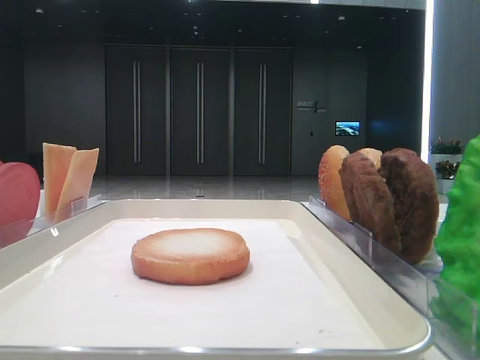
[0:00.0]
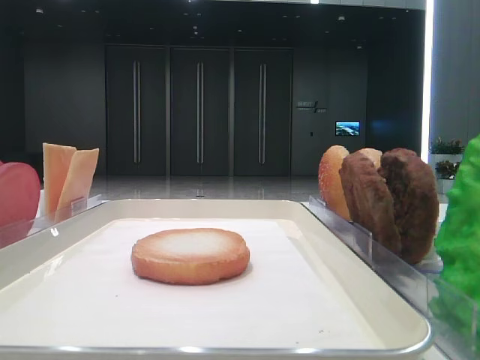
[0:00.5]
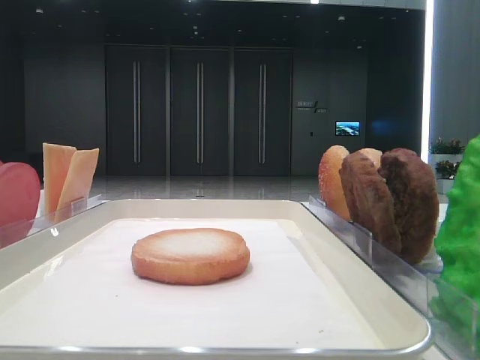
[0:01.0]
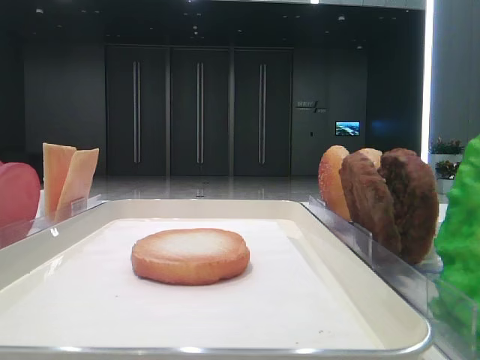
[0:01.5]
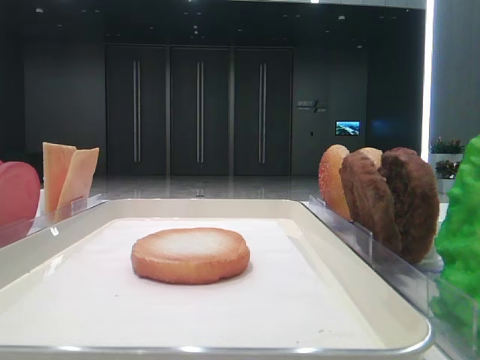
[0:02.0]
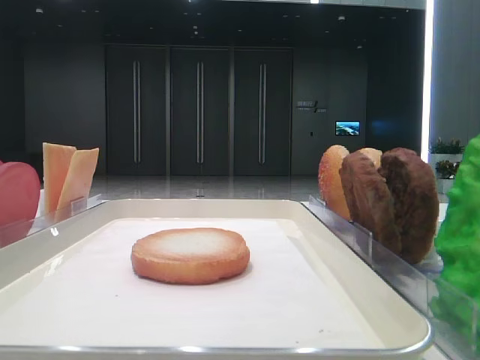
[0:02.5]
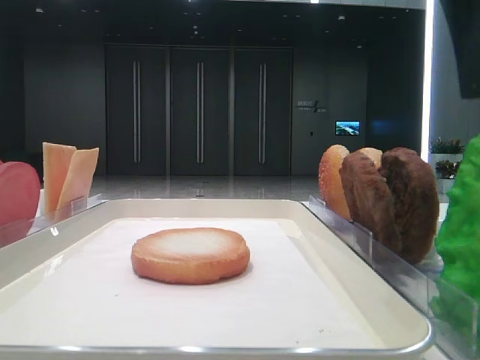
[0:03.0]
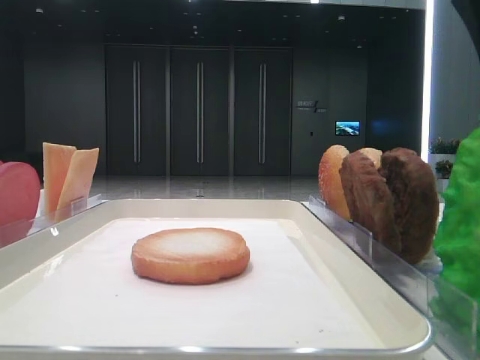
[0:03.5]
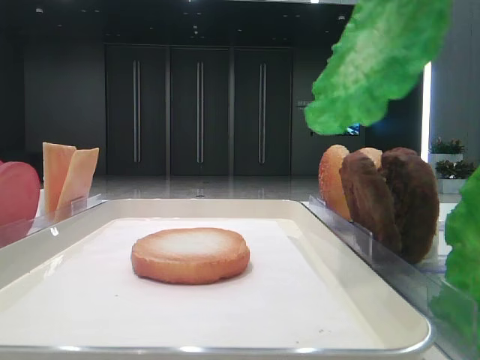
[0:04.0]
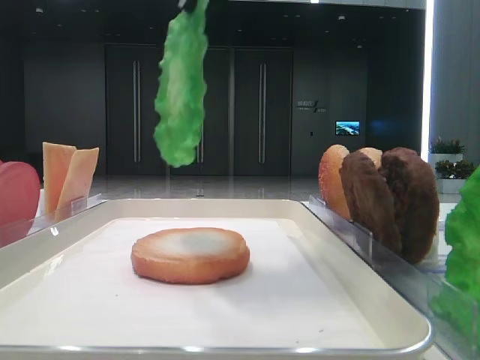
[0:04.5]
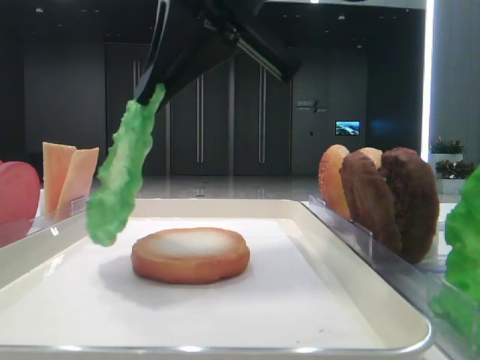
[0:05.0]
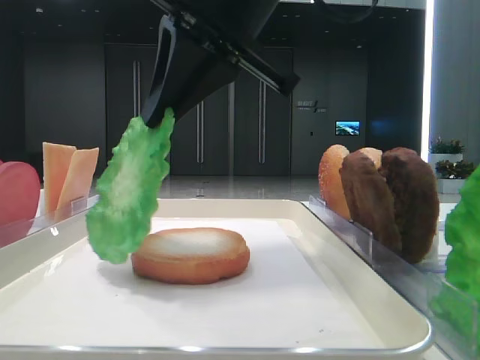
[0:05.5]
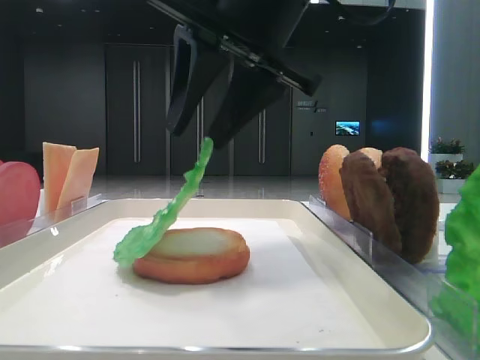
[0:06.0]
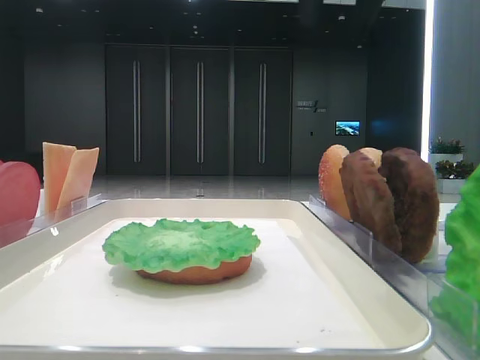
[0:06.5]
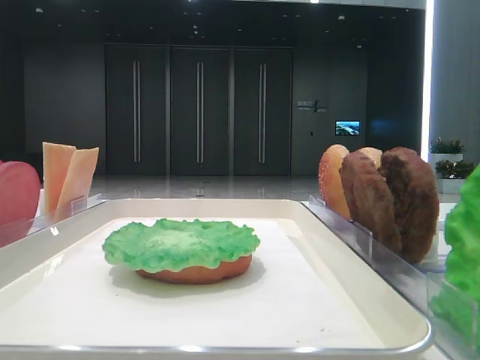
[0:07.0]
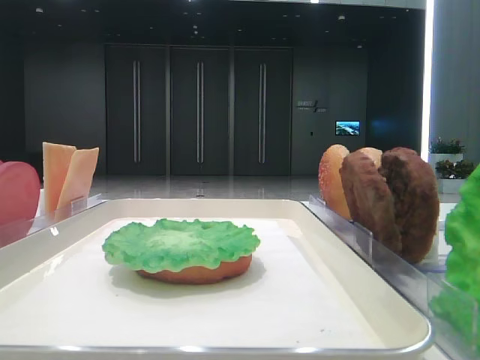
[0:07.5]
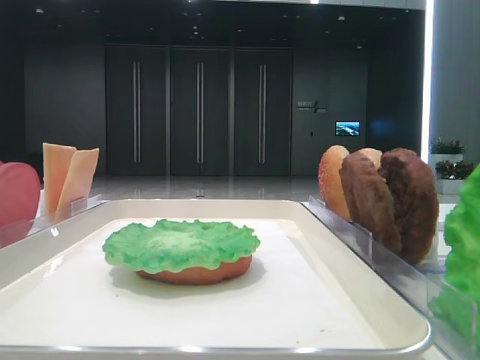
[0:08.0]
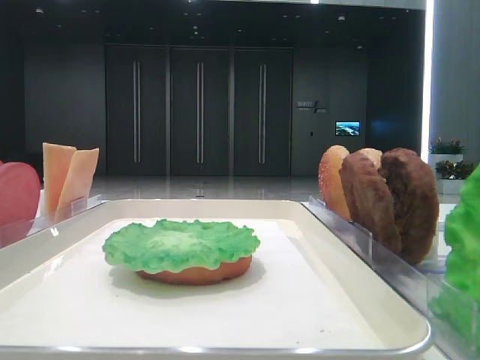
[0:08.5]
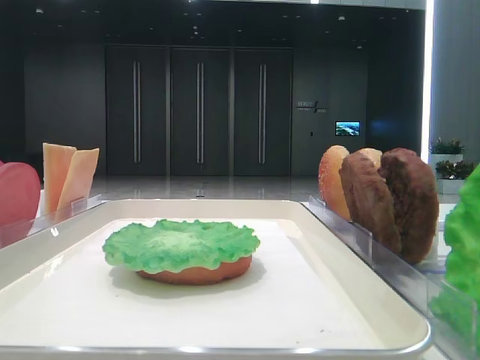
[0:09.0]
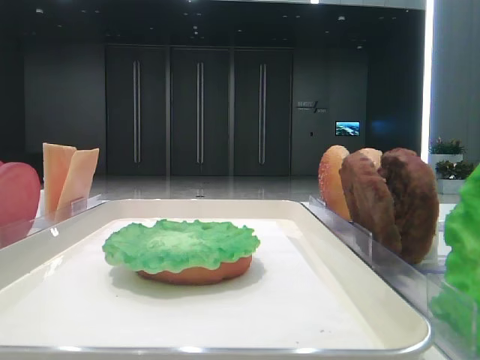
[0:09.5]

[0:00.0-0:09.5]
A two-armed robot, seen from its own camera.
Step, 0:00.0 to 0:03.0: Grab the lettuce leaf with the right hand.
Step, 0:03.5 to 0:06.0: Place the lettuce leaf on the bottom bread with the right hand.
0:02.0 to 0:04.0: The right gripper shifts some 20 cm to the left, and closes.
0:04.0 to 0:05.5: The right gripper moves to the left, downward and forward, some 15 cm.
0:05.5 to 0:07.5: The right gripper shifts roughly 35 cm to the right and upward, and opens.

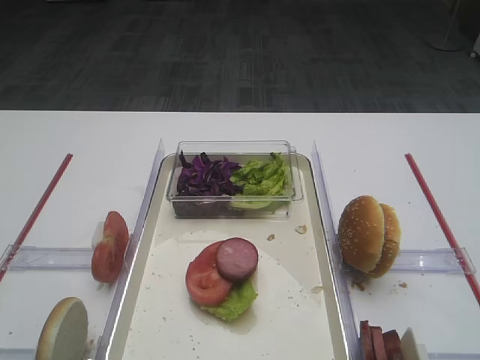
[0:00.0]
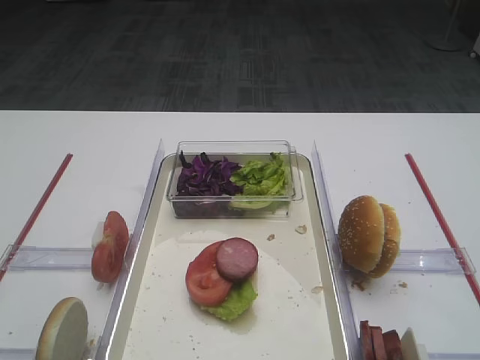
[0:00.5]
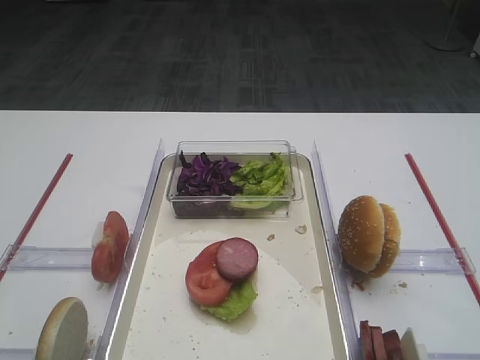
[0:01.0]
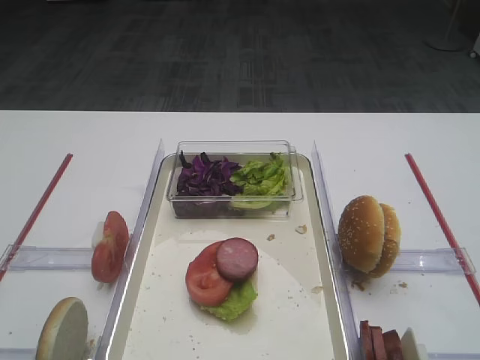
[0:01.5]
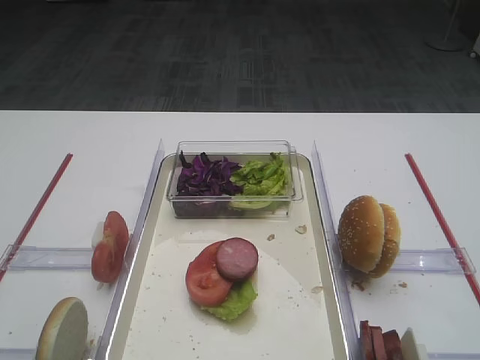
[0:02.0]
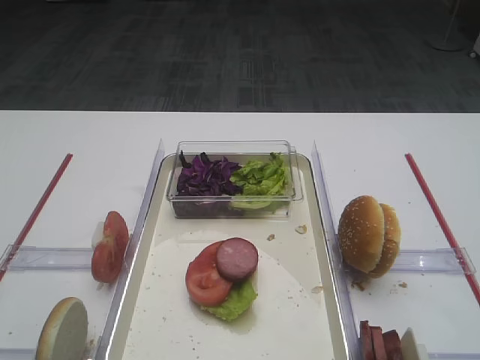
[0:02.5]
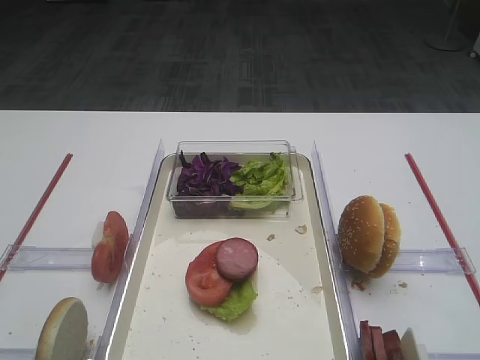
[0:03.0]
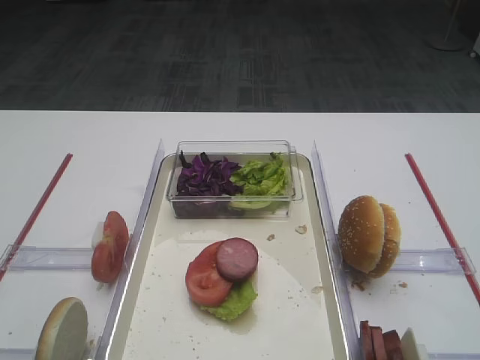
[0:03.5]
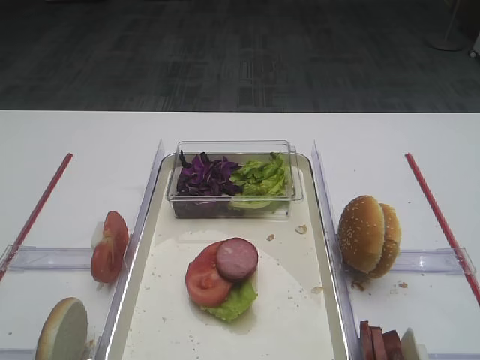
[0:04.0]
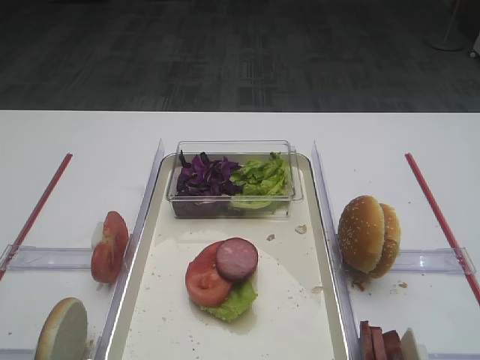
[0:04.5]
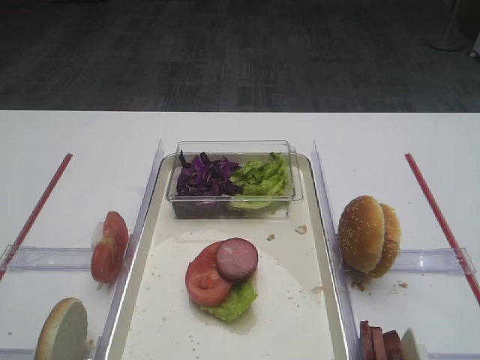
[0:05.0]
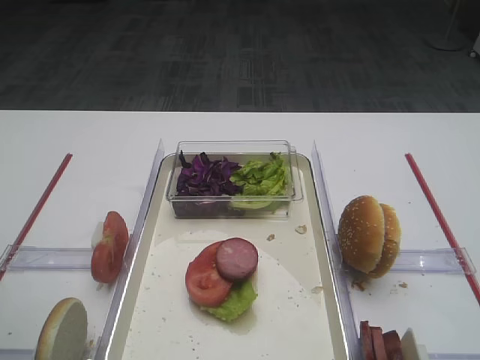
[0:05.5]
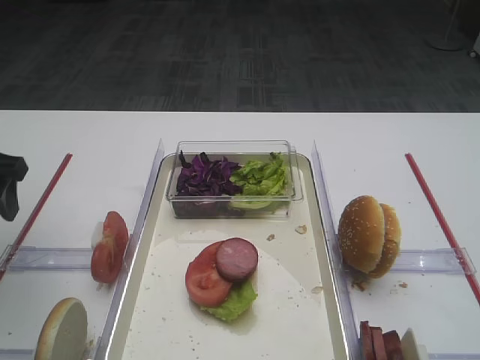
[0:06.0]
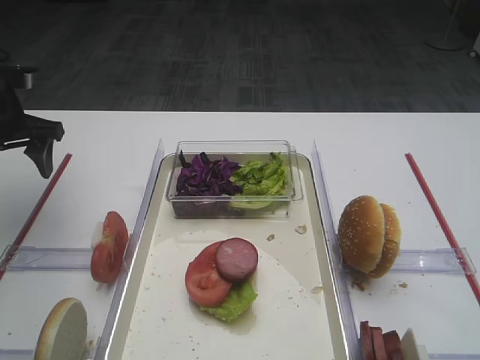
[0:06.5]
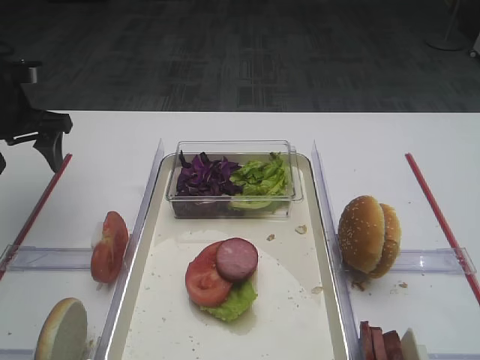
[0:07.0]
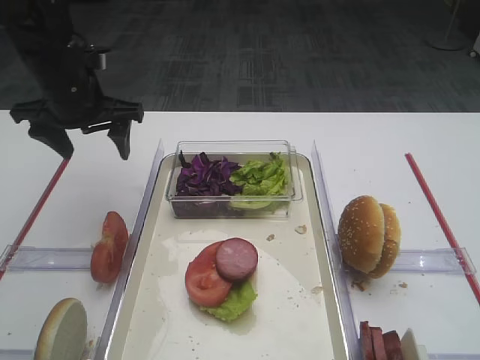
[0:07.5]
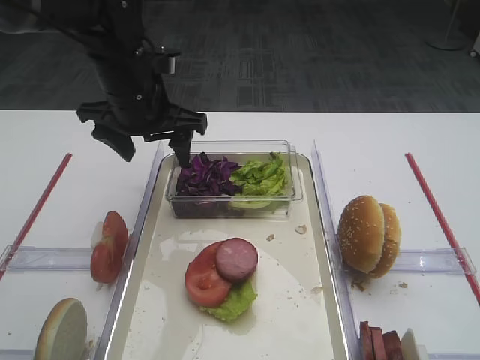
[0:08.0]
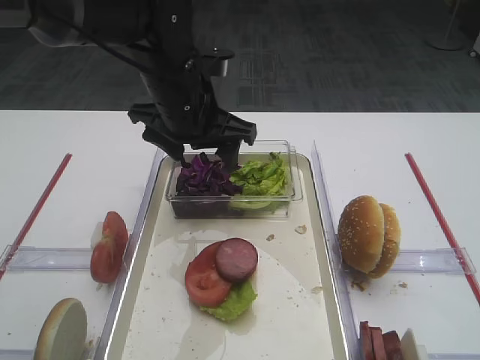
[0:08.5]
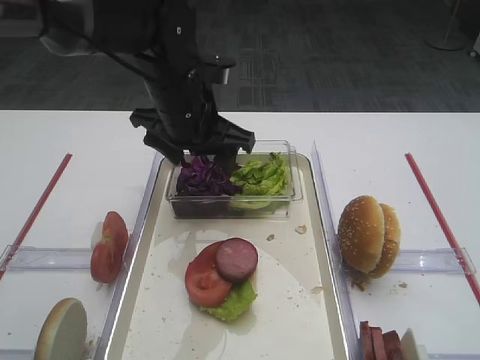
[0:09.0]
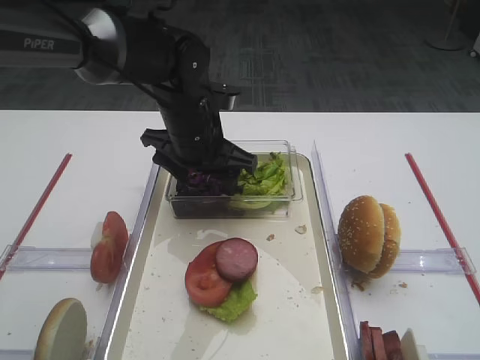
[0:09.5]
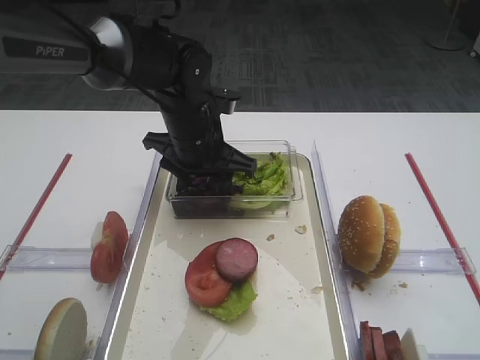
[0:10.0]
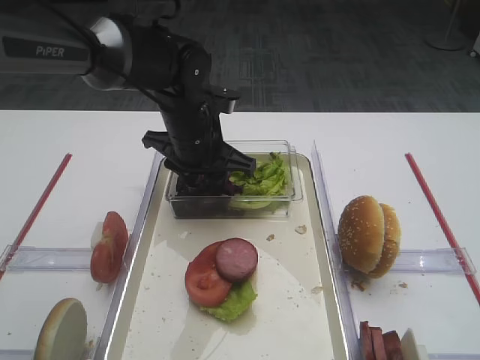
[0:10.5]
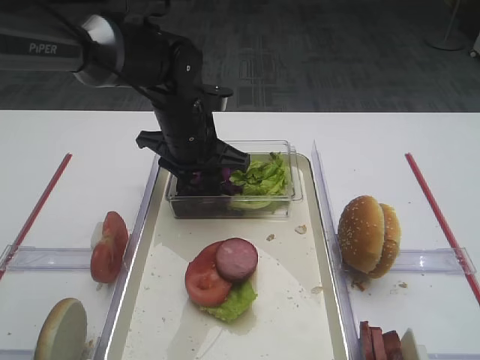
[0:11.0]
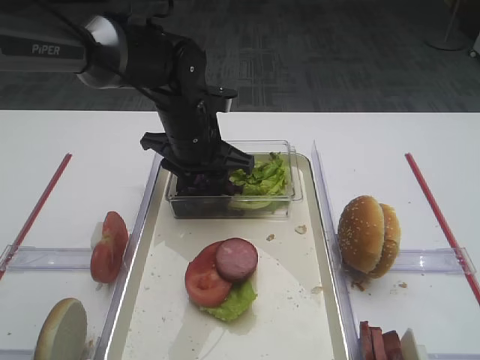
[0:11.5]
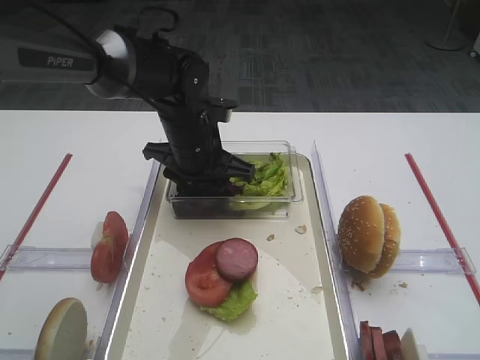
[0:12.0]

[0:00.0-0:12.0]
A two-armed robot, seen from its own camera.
0:04.0 to 0:06.0: The left gripper heads forward, covering approximately 20 cm.
0:06.0 to 0:08.0: The left gripper goes about 20 cm to the right and forward.
0:08.0 to 0:10.0: The left gripper is displaced to the right and downward by some 10 cm.
0:10.0 to 0:12.0: There are only small adjustments of the grippers.

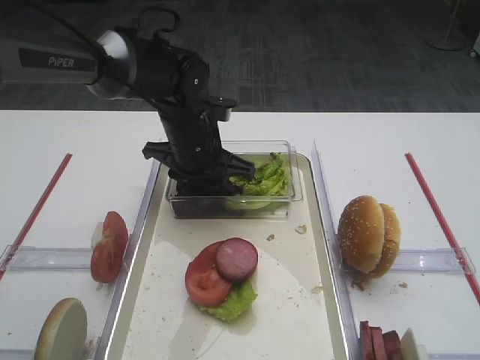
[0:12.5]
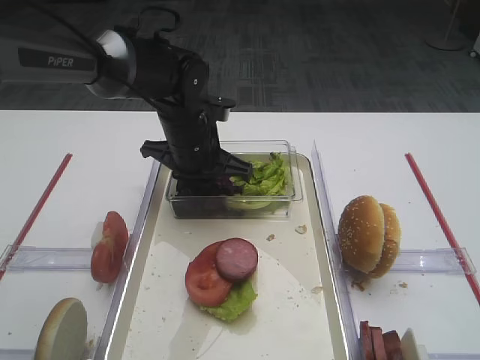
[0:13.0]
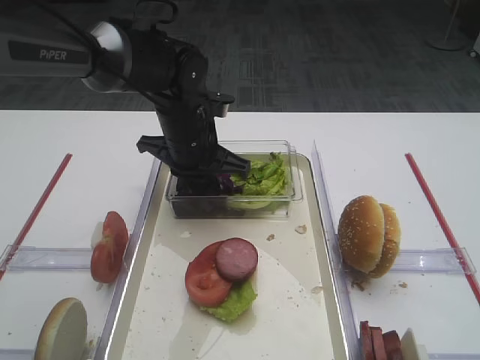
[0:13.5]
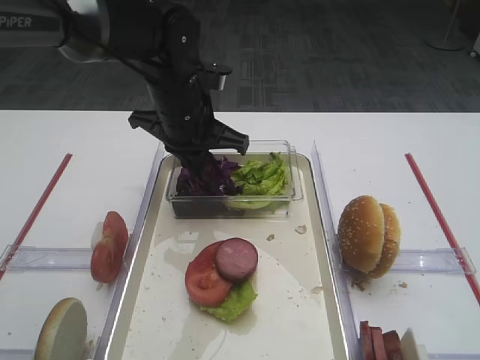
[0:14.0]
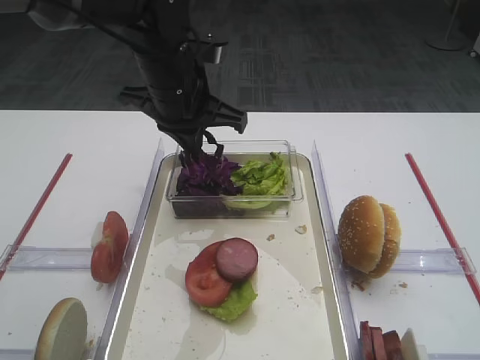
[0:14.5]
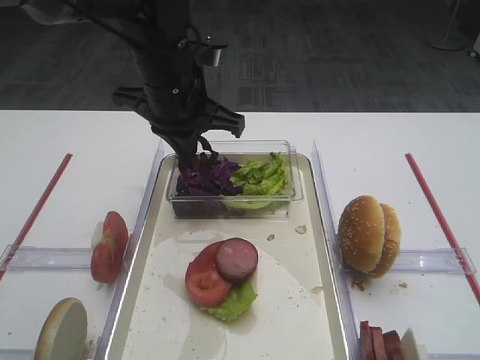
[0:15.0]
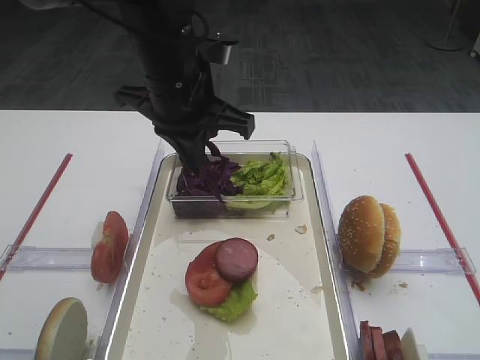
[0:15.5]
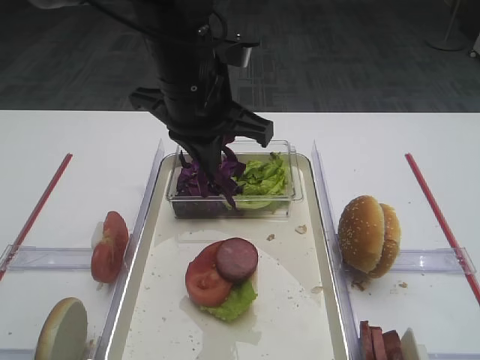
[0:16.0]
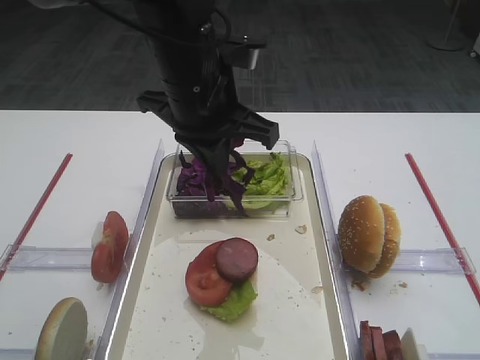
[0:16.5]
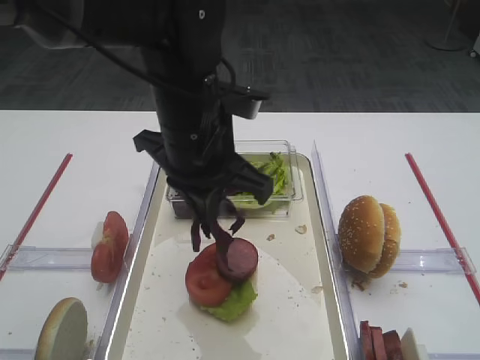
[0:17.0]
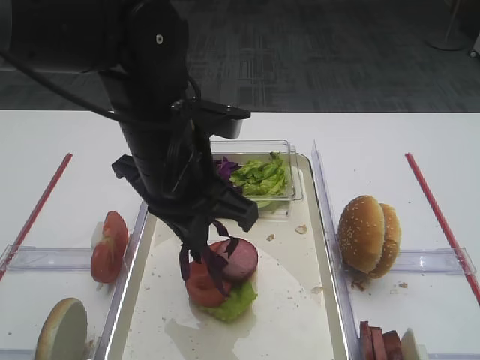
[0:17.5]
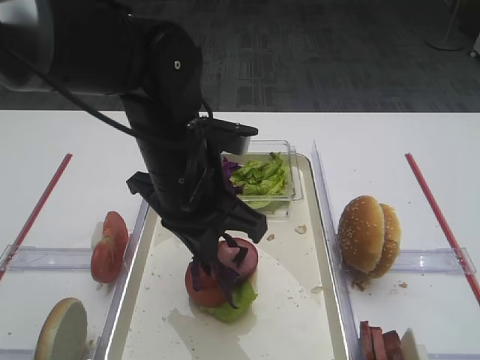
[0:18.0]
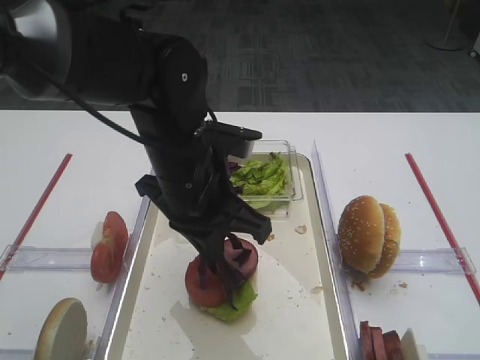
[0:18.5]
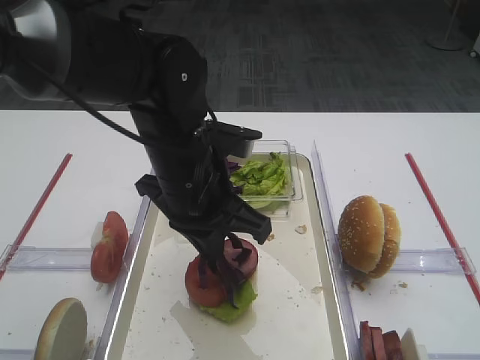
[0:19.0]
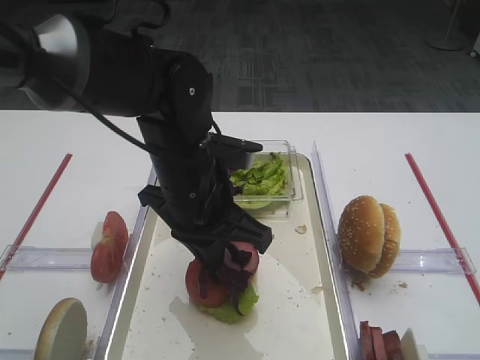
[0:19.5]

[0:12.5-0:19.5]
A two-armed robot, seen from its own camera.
Step, 0:12.5 to 0:15.5: Pick up the purple cabbage with the left gripper.
0:12.5 to 0:14.5: The left gripper goes about 10 cm upward, and closes.
0:14.5 to 0:16.0: The left gripper moves about 5 cm.
0:16.0 to 0:17.5: The left gripper is displaced backward by about 5 cm.
0:17.5 to 0:19.5: The left gripper changes place by some 5 cm.
